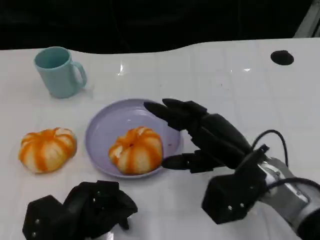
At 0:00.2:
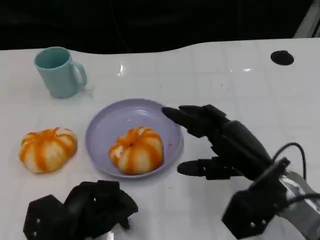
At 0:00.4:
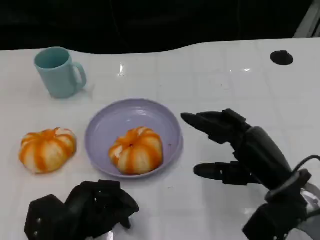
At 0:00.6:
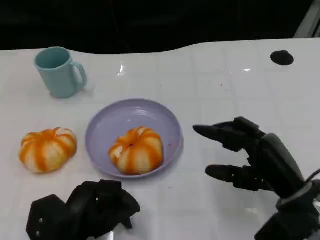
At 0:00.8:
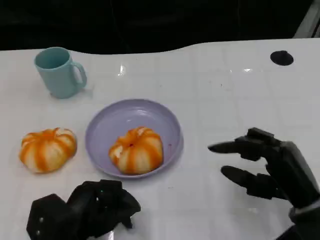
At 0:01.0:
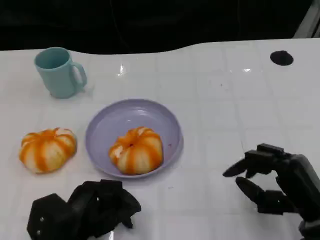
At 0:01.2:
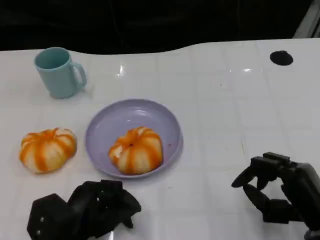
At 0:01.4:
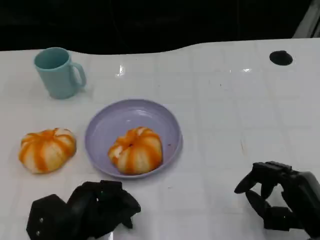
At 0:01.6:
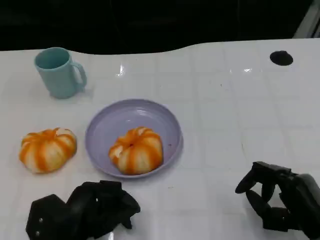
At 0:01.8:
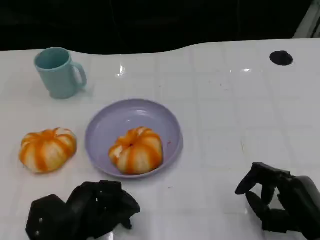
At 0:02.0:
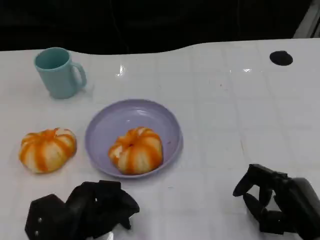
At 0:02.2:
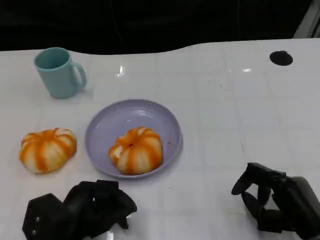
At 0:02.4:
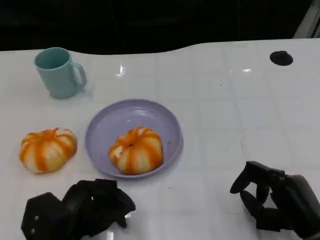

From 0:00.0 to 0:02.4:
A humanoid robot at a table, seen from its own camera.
Task of the whole recording: Grasp the bread from the table and place it into the plate.
From 0:00.0 to 0:01.2: The right hand shifts roughly 15 cm to the right, backward and downward.
From 0:01.2 to 0:02.4: The hands move only a little.
